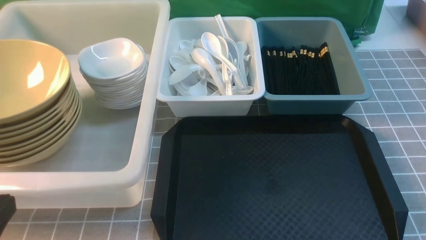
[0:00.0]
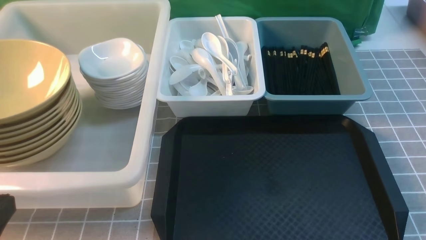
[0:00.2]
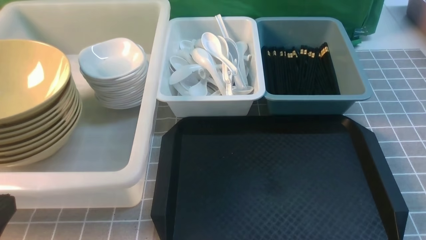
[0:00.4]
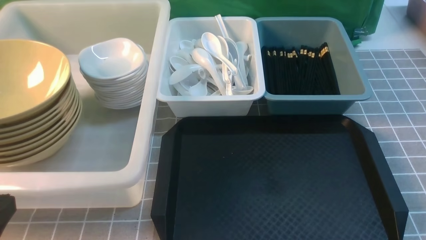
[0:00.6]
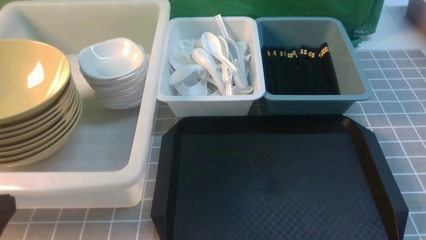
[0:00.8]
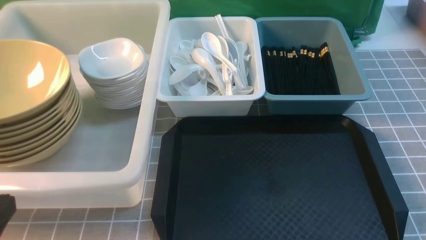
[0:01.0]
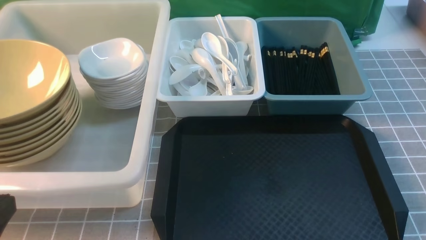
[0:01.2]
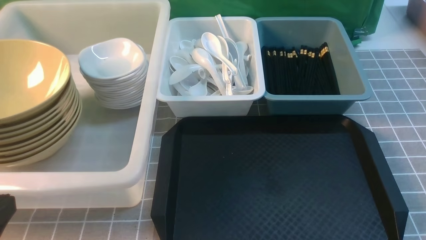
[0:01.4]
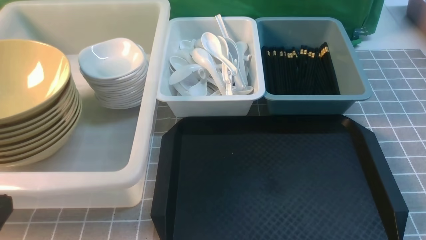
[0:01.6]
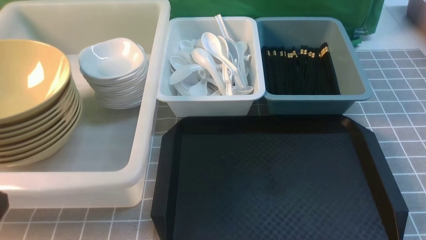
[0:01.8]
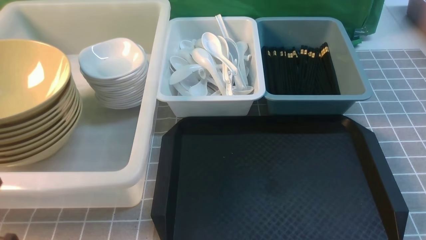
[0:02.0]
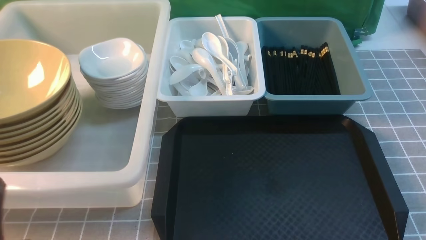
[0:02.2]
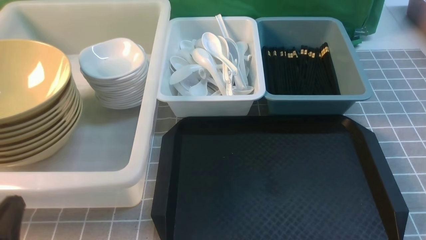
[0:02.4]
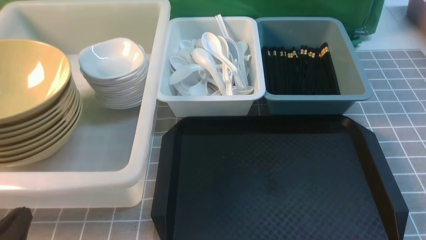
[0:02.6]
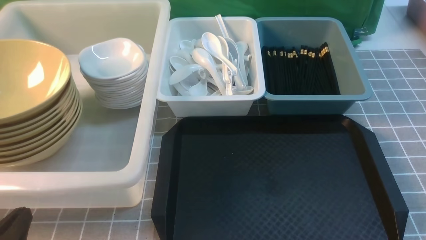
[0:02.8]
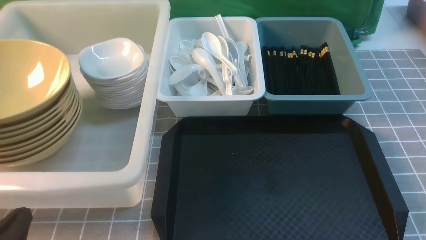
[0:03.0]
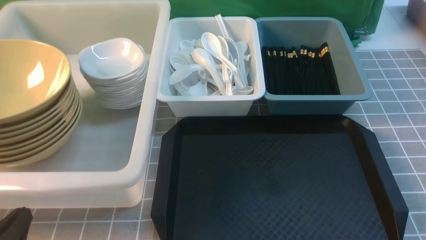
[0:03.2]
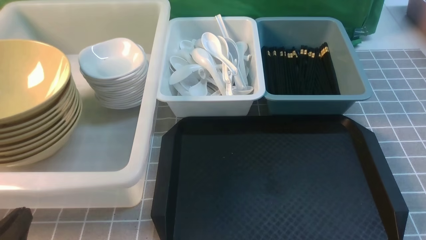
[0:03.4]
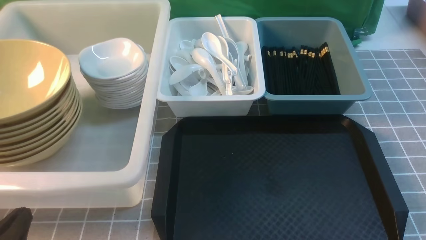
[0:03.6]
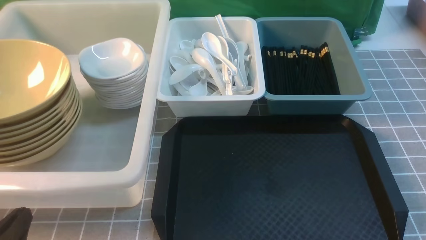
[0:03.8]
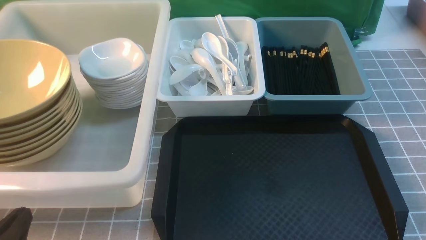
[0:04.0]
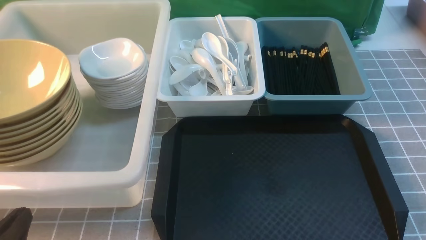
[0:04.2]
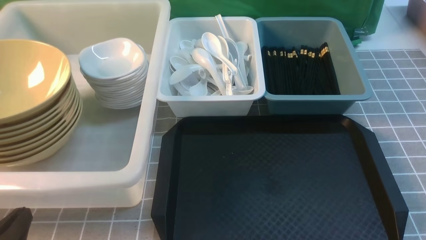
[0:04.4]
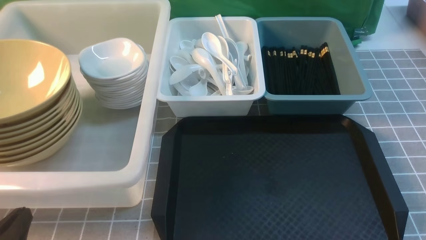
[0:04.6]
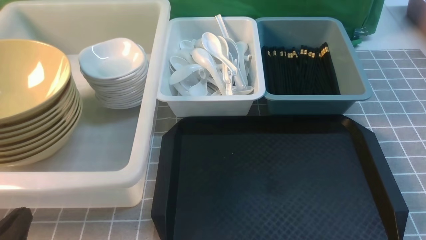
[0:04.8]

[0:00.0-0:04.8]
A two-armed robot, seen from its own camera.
Task of the whole recording: on grey table put chopsticks spoon bowls plates into blue grey white boxes.
0:01.6 to 0:03.2: The left gripper shifts about 10 cm downward.
0:03.2 to 0:04.8: Neither gripper changes place.
